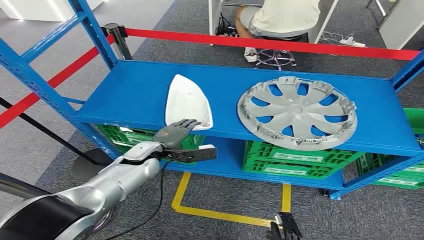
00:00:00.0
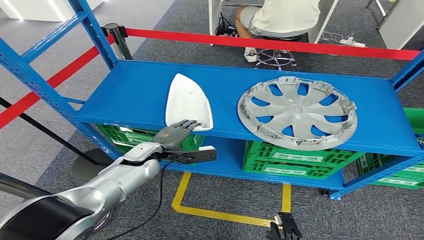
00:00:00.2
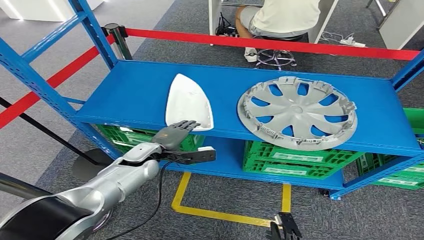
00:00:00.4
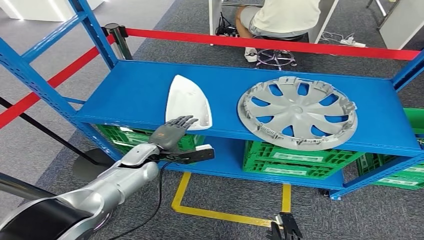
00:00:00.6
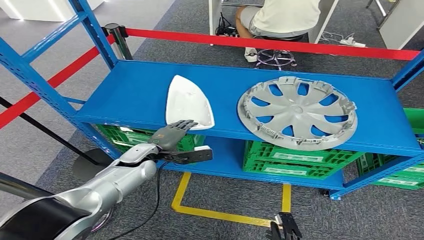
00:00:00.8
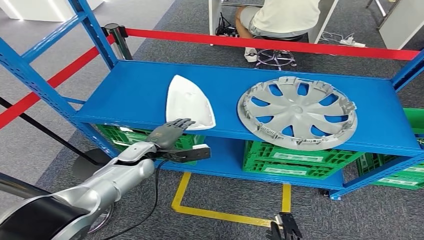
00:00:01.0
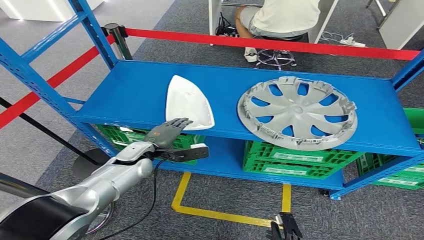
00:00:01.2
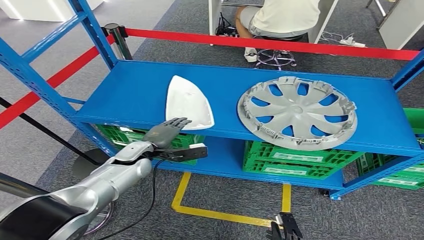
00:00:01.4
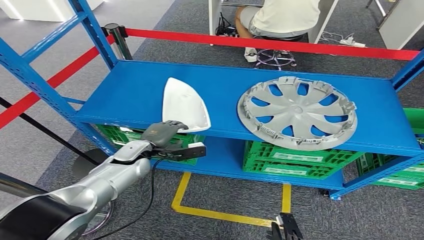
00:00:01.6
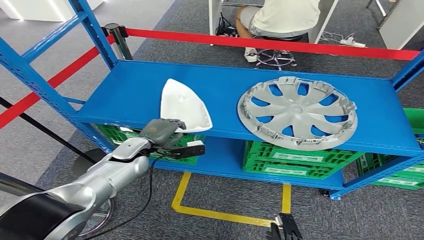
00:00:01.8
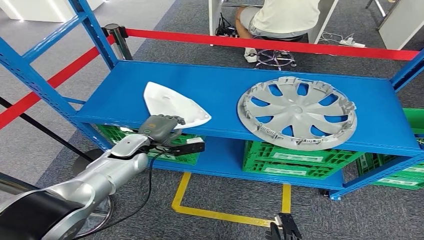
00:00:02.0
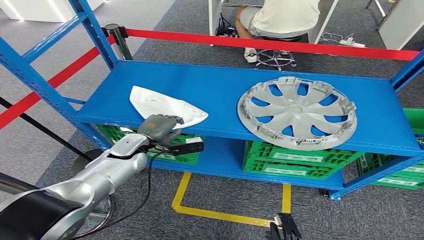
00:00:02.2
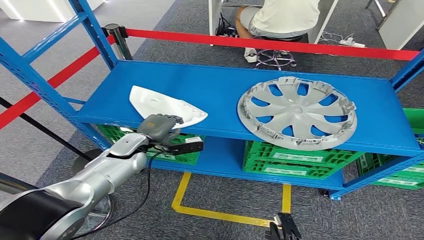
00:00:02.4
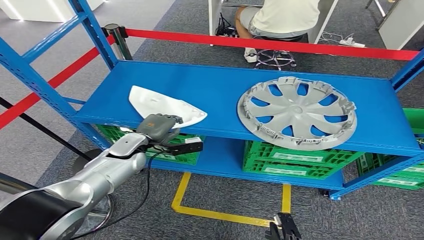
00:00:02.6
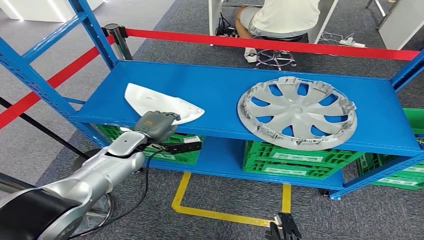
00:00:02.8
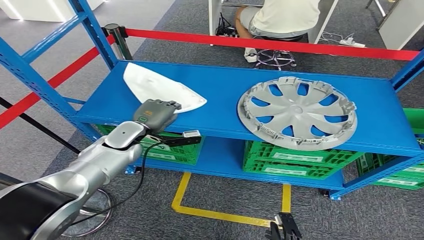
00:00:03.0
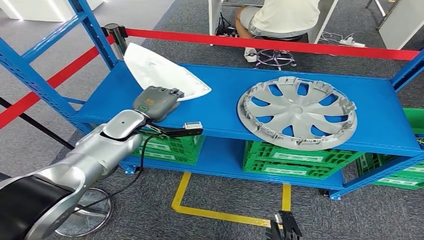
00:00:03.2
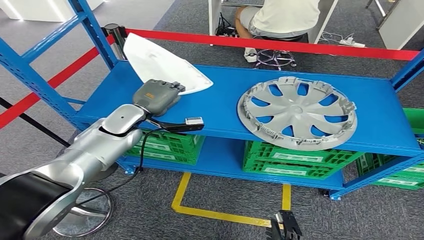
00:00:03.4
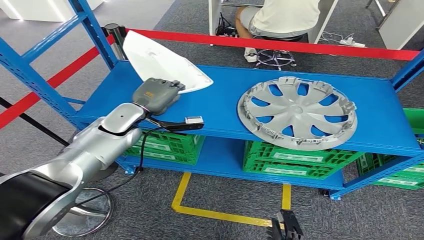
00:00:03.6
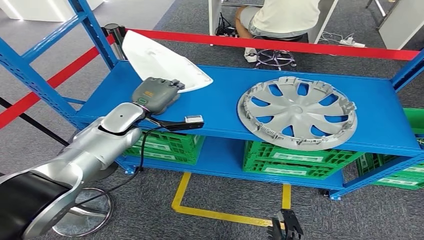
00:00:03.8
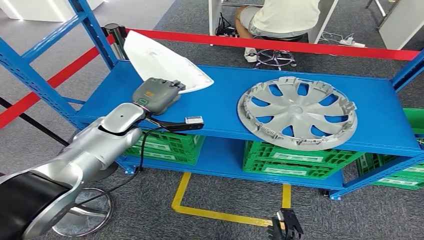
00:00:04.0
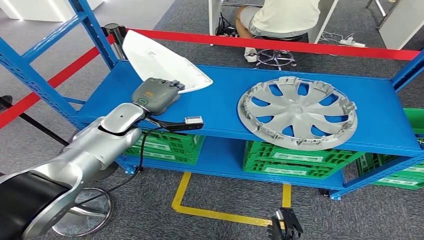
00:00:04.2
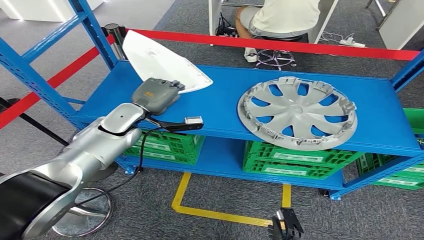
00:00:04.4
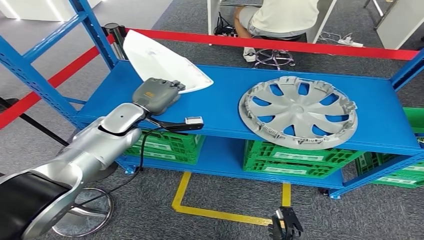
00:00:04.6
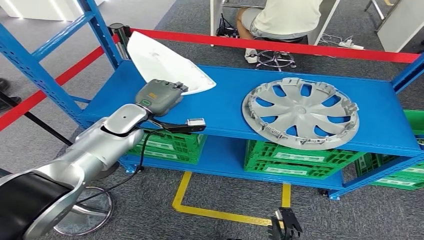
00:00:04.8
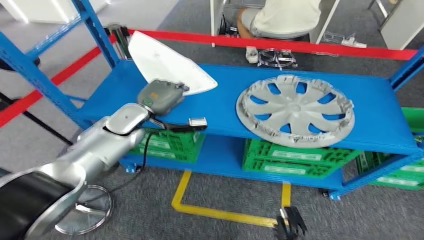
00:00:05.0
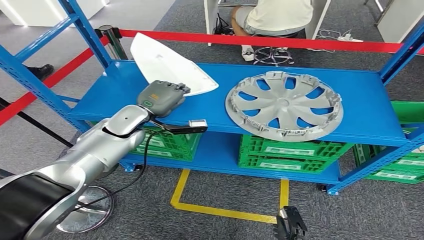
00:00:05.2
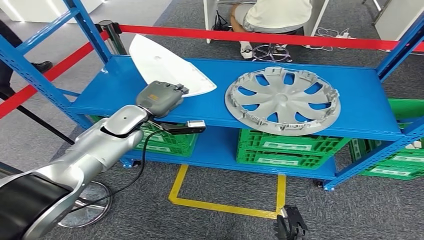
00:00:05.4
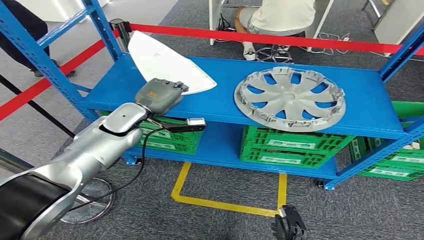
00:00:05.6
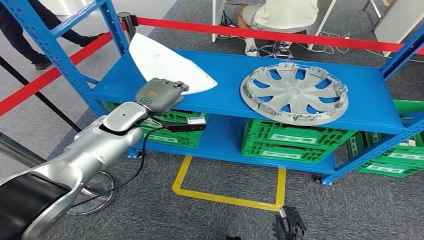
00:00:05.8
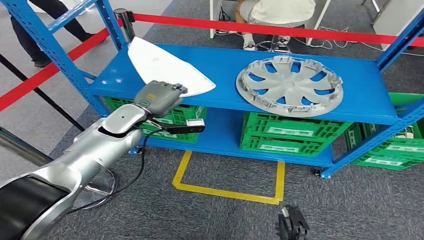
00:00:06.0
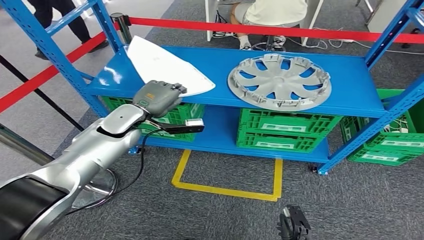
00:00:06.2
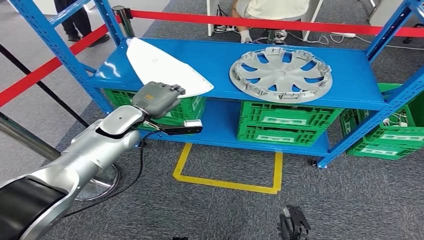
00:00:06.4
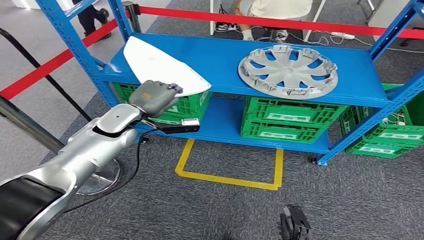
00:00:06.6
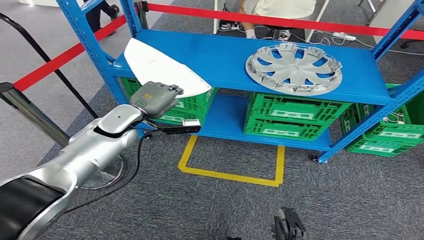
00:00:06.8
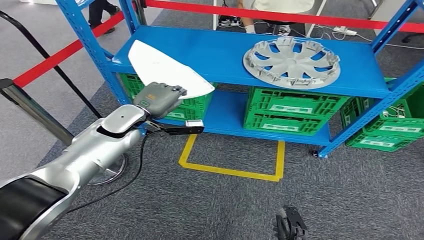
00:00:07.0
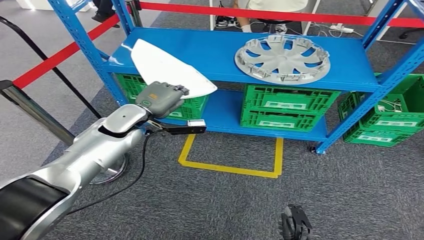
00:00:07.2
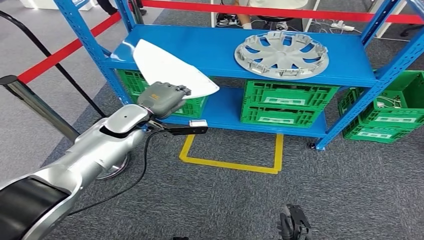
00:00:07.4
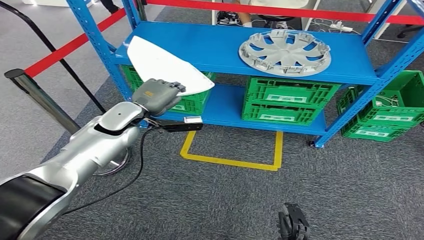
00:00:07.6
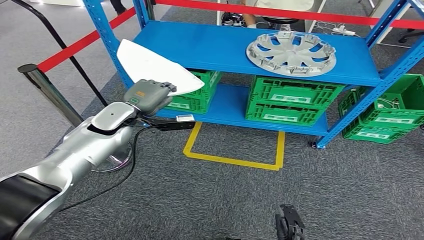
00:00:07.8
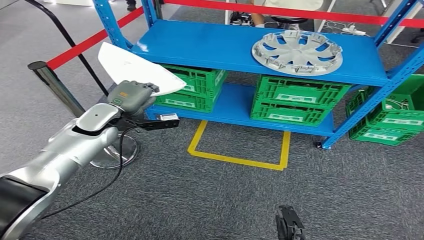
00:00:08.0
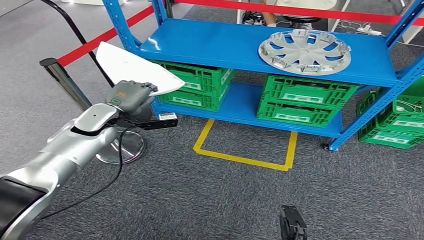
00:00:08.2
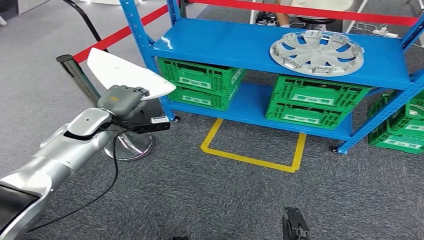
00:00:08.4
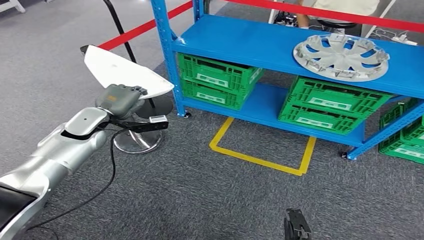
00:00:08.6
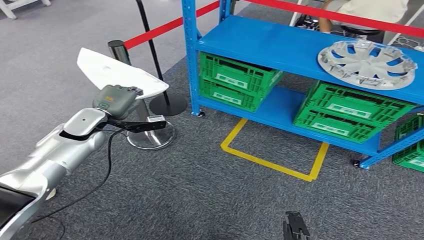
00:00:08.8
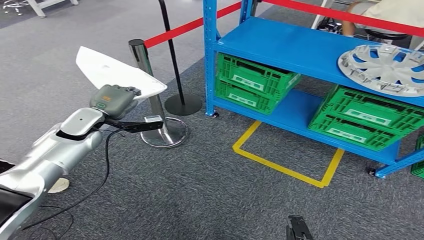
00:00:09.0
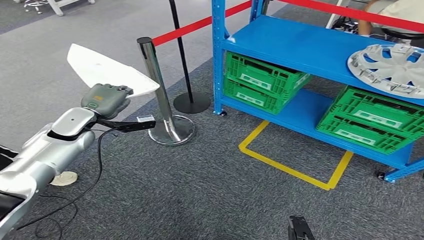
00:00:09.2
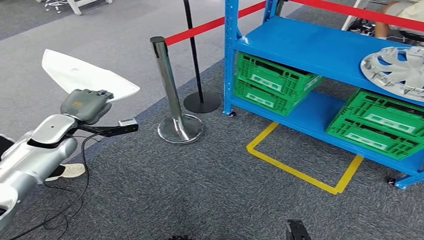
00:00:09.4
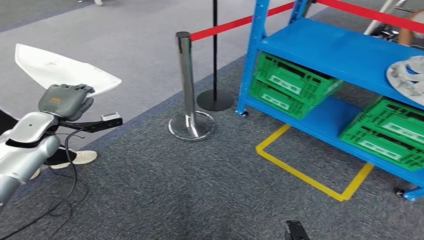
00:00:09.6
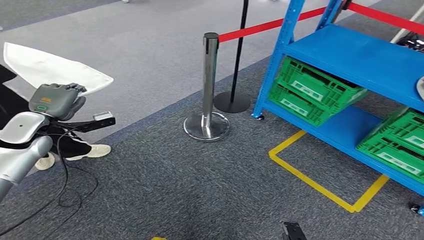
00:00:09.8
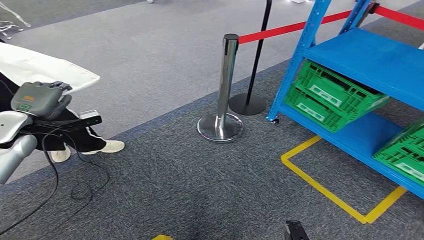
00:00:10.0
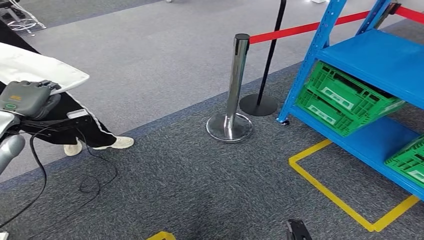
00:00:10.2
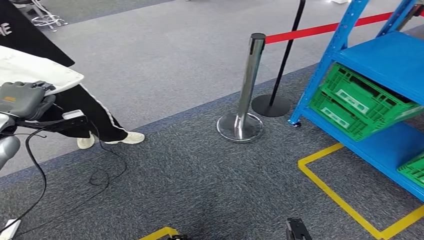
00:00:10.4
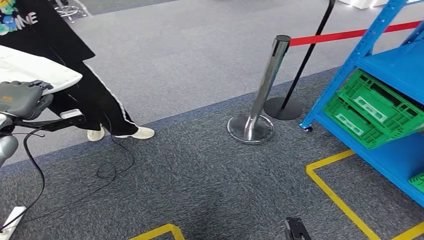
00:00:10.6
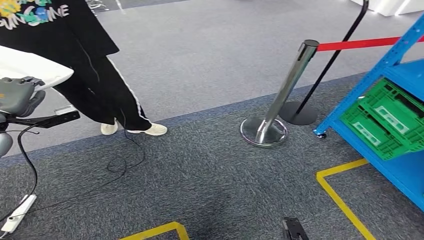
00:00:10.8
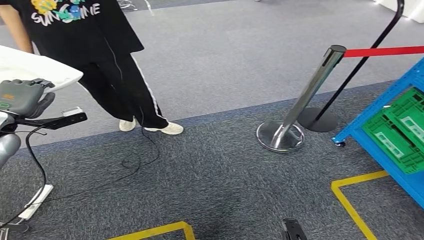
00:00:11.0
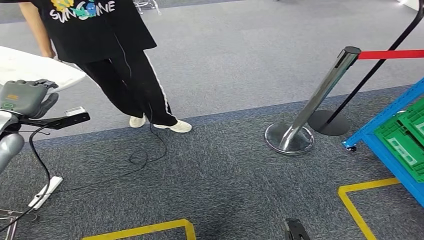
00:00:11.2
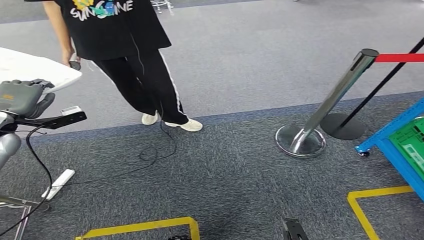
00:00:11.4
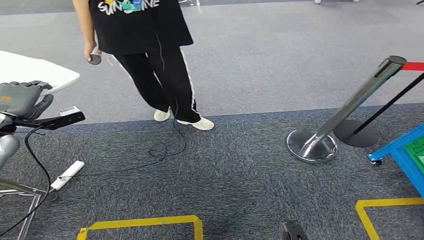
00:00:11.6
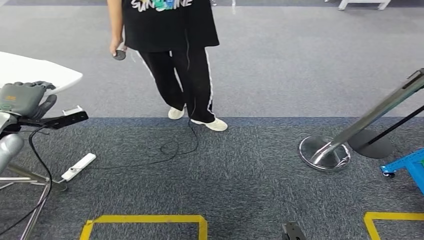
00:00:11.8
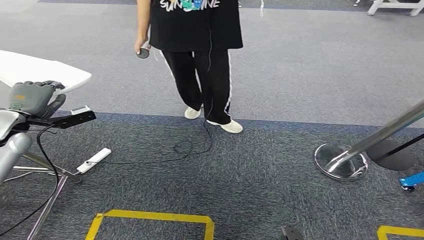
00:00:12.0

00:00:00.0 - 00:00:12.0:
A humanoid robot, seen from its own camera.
Step, 00:00:00.0 - 00:00:05.0: Pick up the small component from the shelf.
00:00:01.6 - 00:00:03.0: The left hand ends up about 5 cm from where it was.
00:00:03.0 - 00:00:04.4: The left hand shifts approximately 5 cm upward.

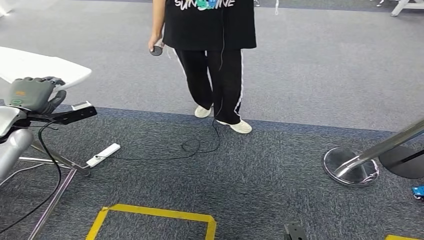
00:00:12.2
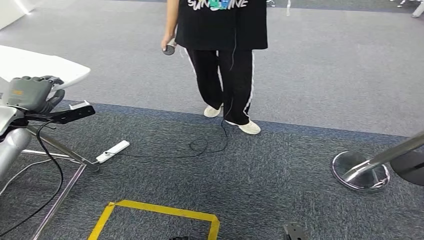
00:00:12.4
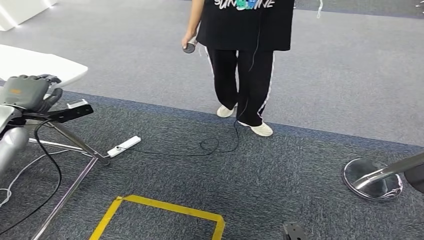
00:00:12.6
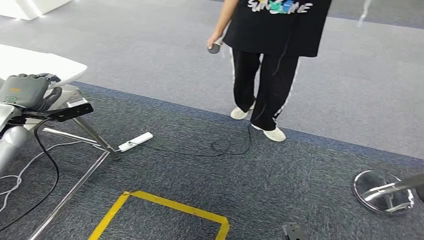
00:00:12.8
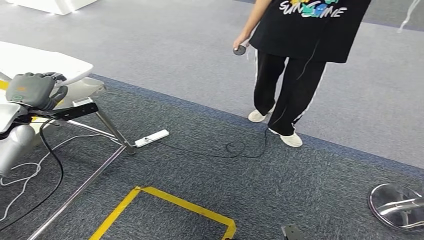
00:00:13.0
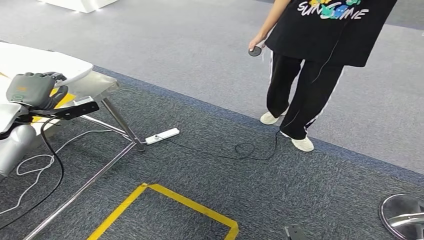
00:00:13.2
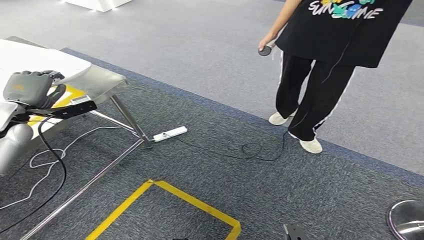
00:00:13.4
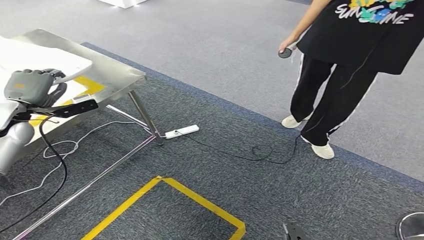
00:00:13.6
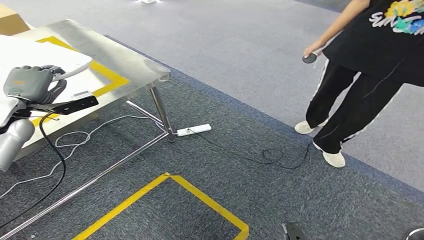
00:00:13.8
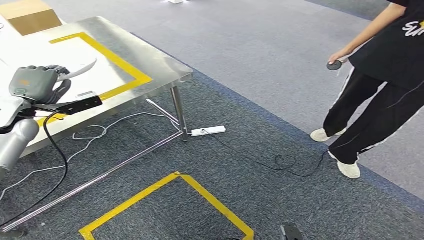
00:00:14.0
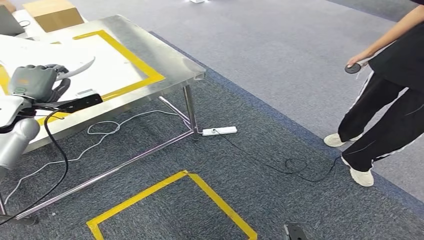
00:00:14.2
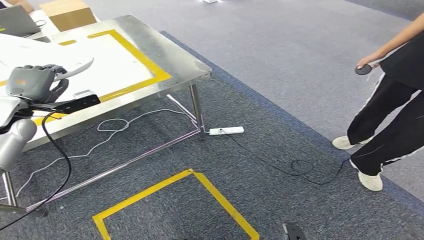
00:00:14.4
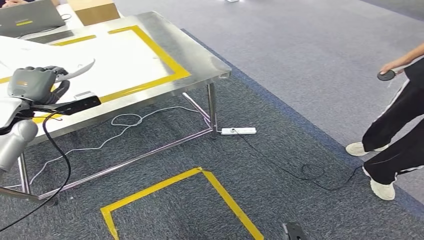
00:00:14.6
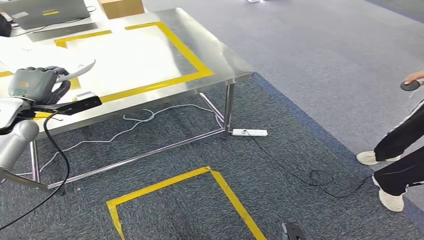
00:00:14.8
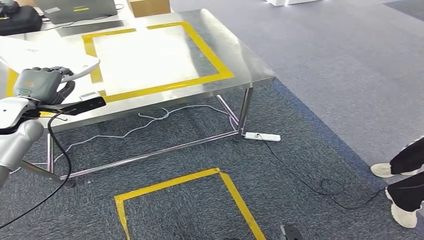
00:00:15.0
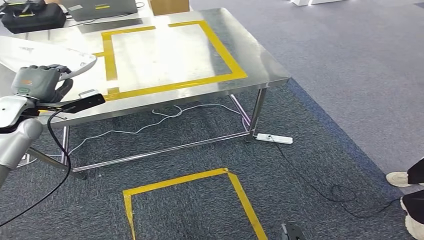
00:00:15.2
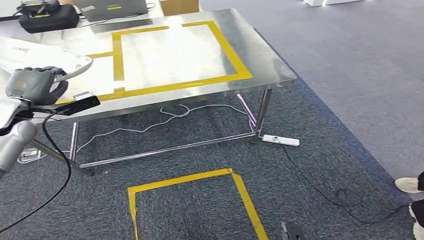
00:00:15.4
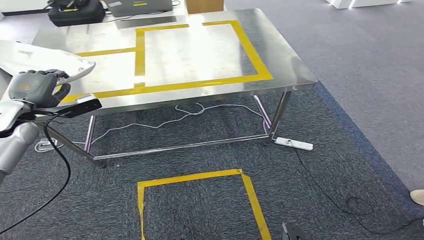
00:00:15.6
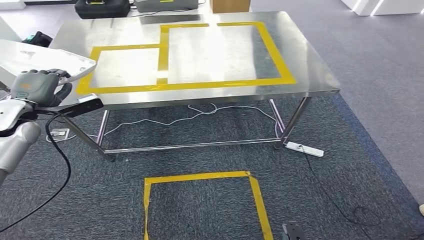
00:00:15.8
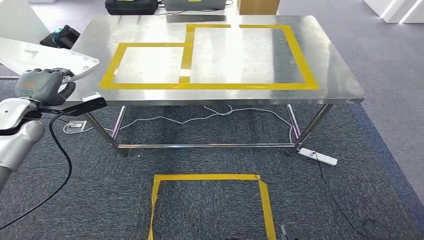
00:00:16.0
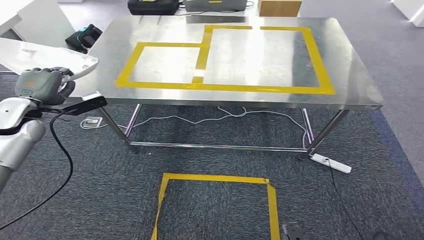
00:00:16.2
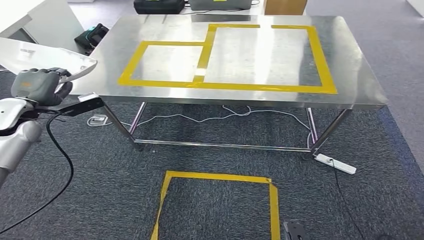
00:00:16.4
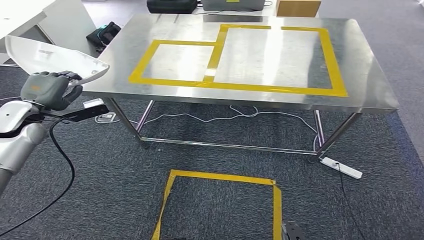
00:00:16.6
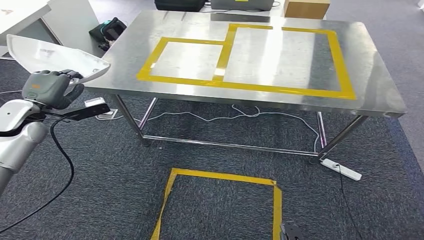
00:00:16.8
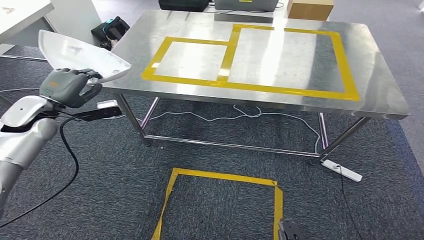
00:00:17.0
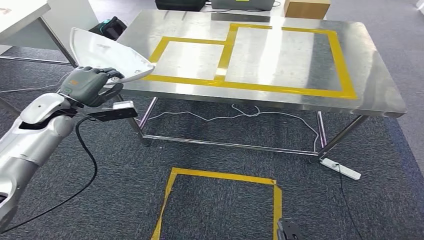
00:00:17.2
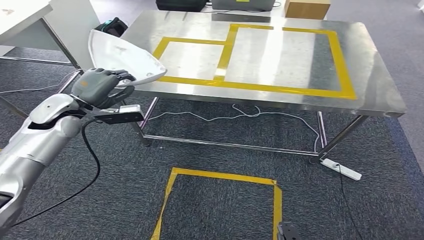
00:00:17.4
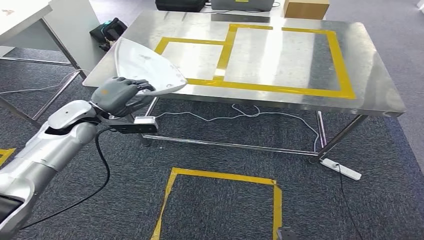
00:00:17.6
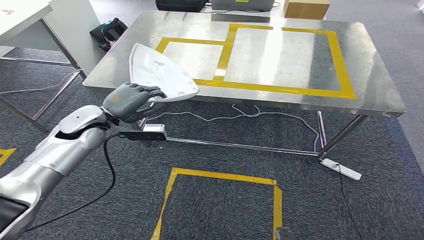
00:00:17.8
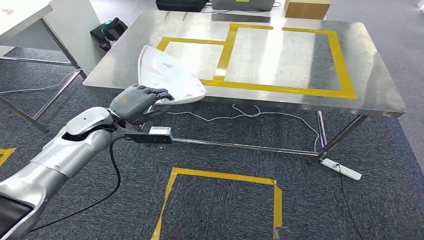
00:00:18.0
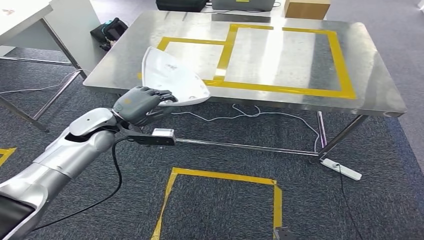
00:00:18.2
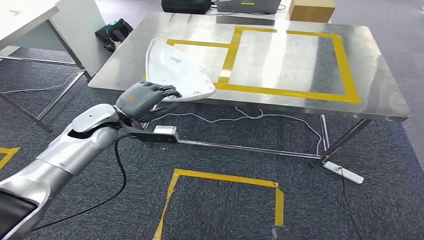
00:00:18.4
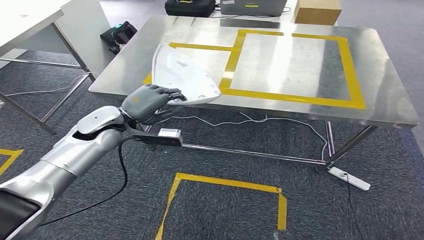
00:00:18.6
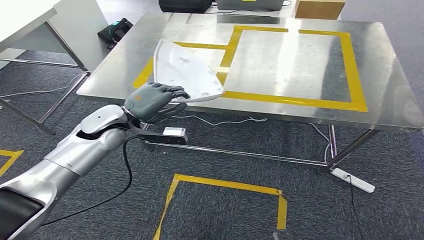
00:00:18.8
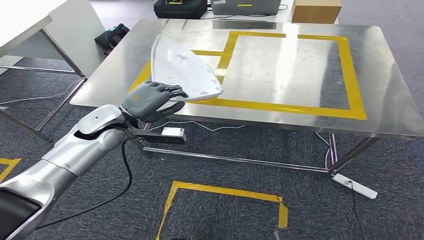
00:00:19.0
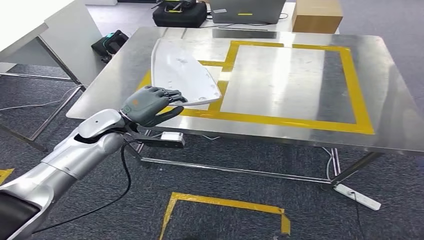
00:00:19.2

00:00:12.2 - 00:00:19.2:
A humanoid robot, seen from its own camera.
Step, 00:00:12.2 - 00:00:15.8: Bring the small component to the front of the workbench.
